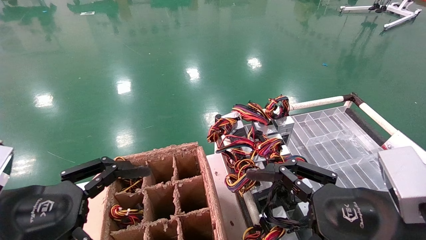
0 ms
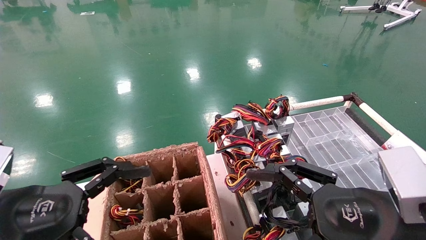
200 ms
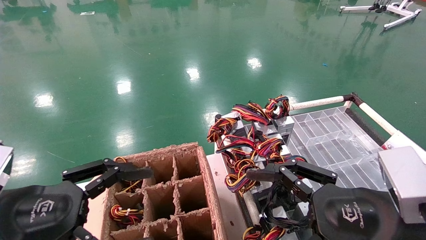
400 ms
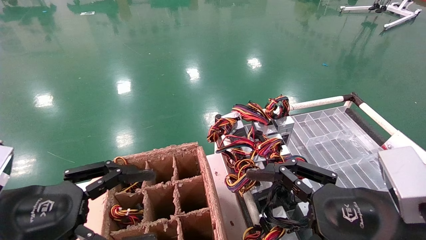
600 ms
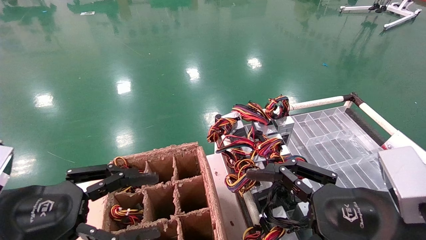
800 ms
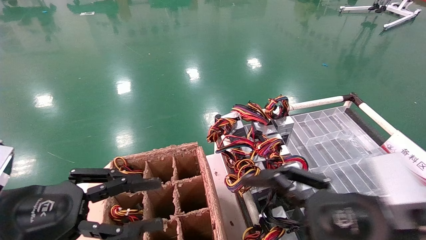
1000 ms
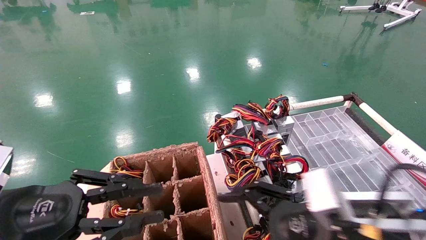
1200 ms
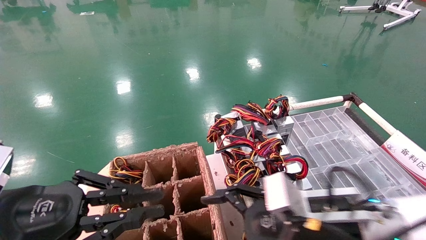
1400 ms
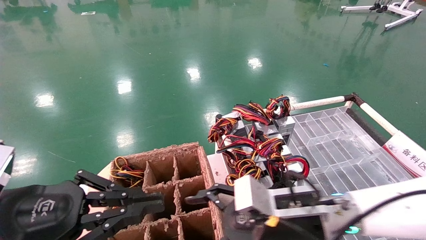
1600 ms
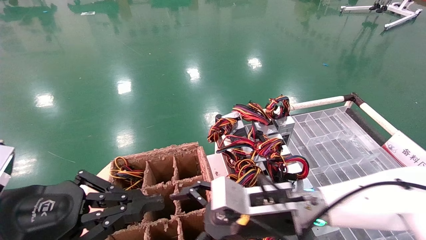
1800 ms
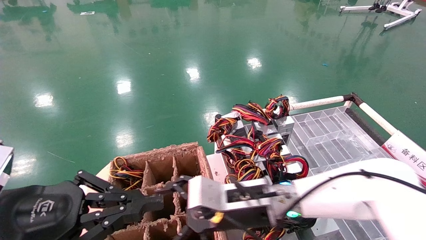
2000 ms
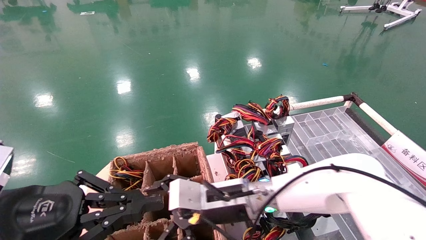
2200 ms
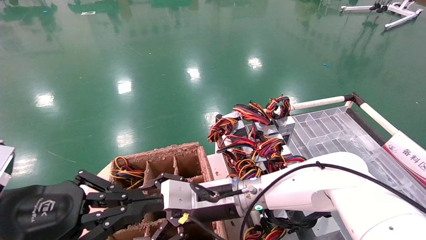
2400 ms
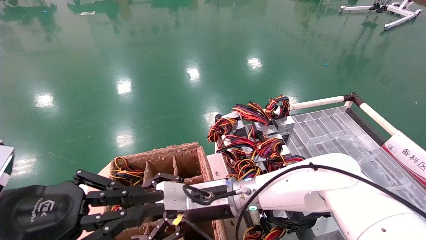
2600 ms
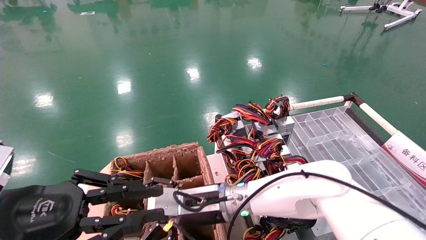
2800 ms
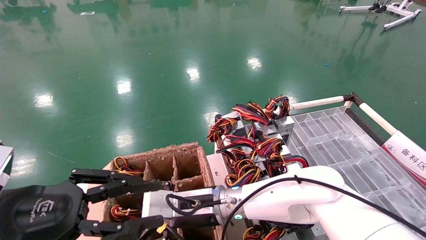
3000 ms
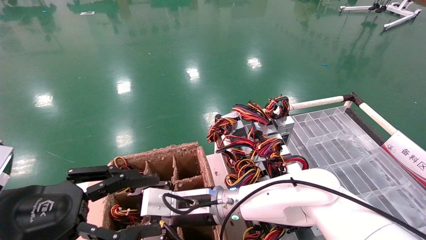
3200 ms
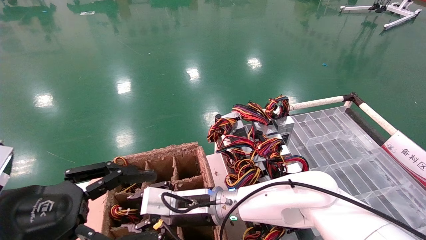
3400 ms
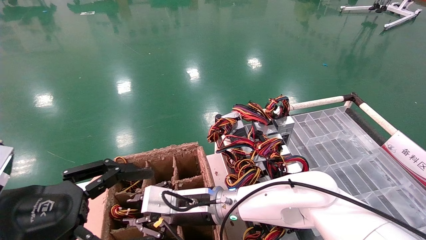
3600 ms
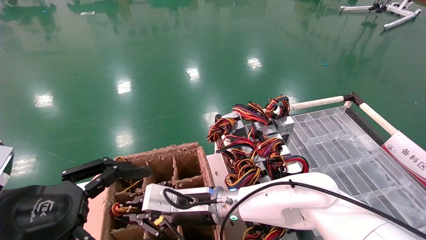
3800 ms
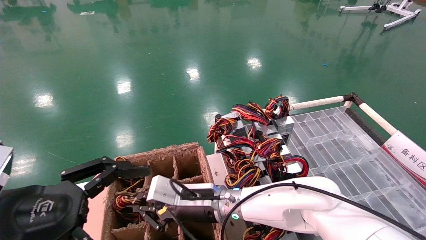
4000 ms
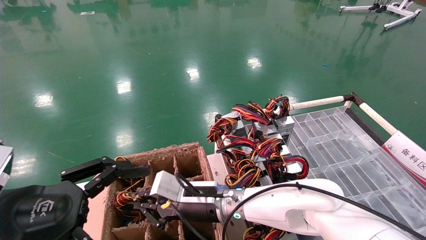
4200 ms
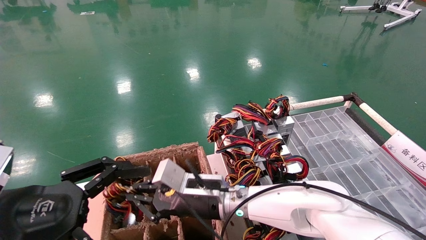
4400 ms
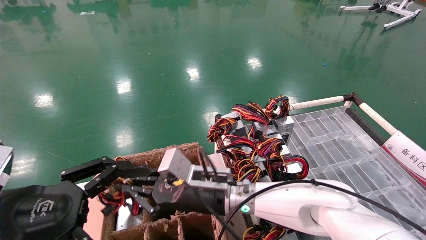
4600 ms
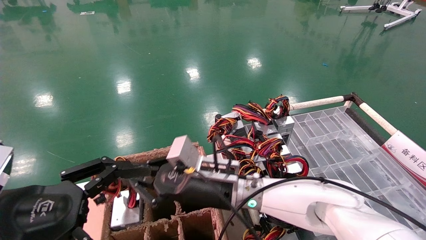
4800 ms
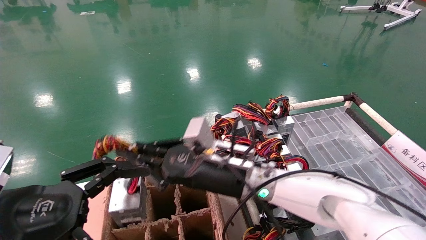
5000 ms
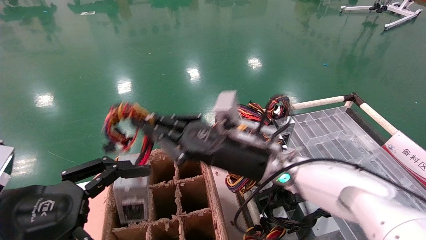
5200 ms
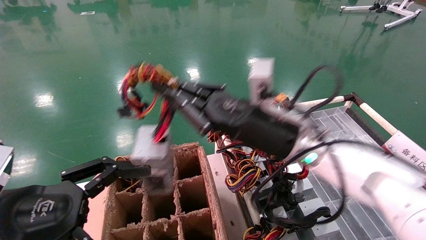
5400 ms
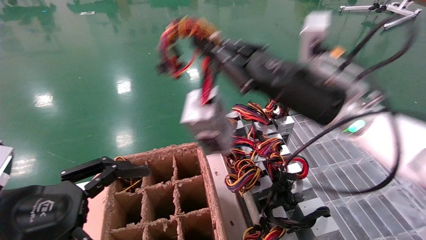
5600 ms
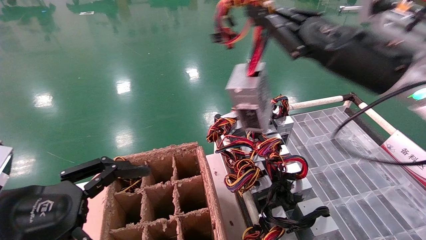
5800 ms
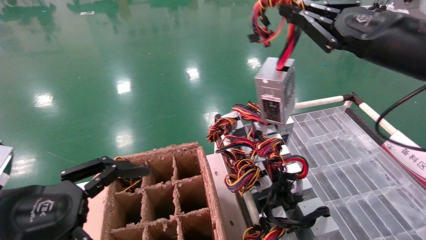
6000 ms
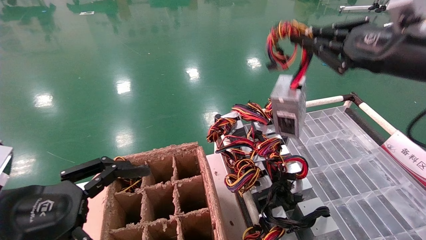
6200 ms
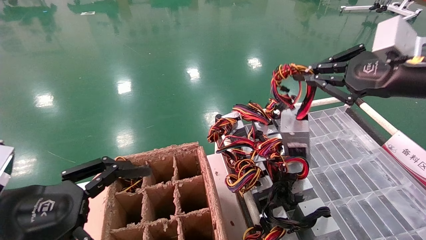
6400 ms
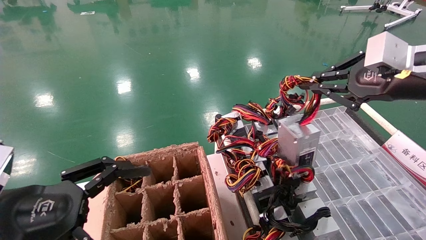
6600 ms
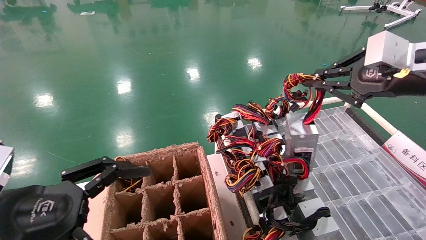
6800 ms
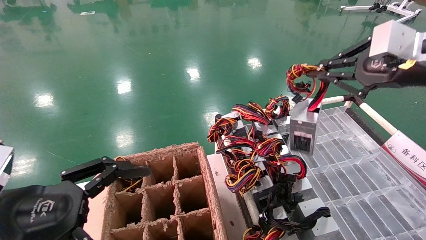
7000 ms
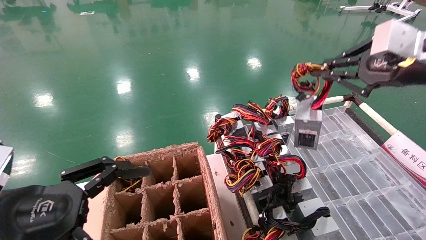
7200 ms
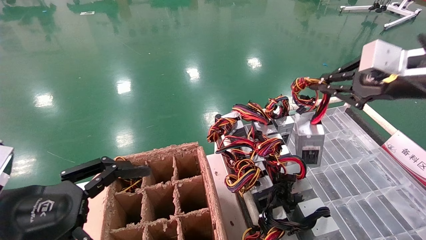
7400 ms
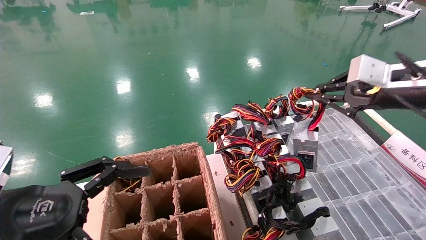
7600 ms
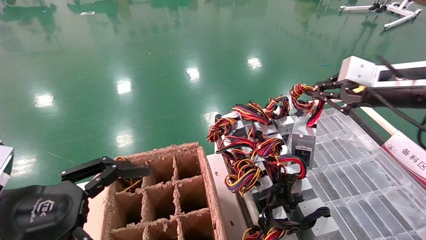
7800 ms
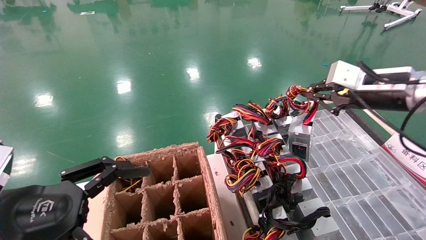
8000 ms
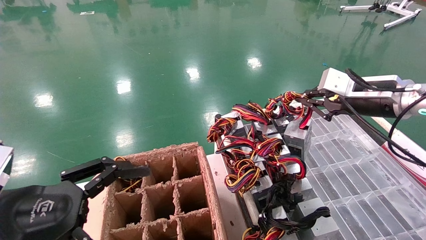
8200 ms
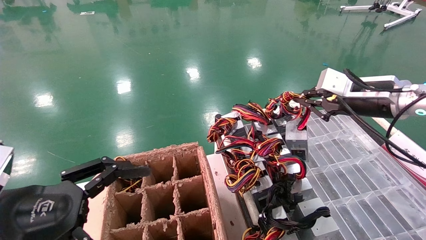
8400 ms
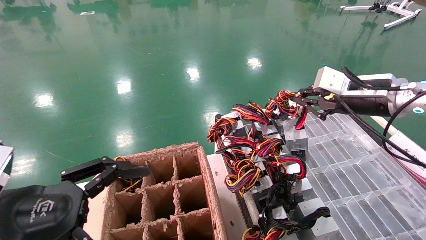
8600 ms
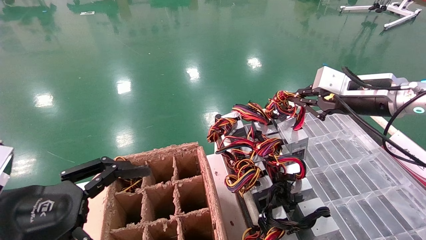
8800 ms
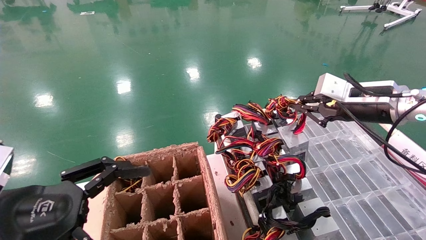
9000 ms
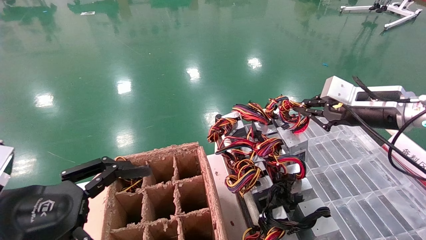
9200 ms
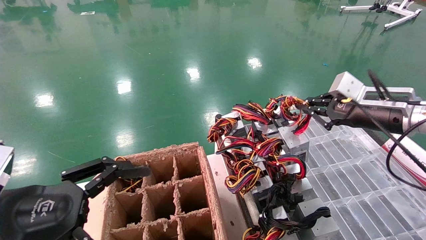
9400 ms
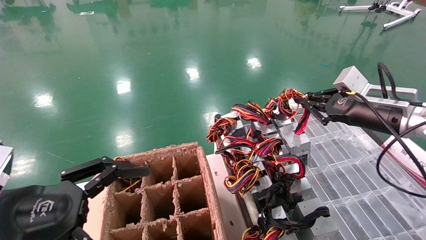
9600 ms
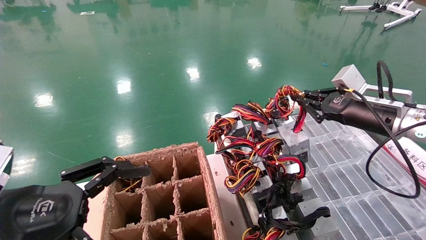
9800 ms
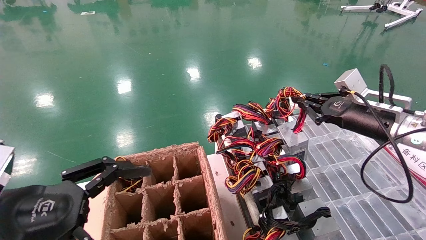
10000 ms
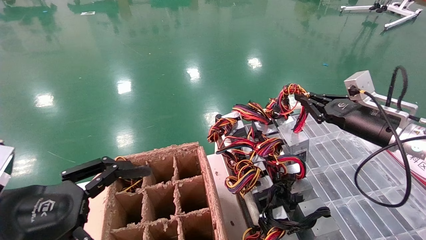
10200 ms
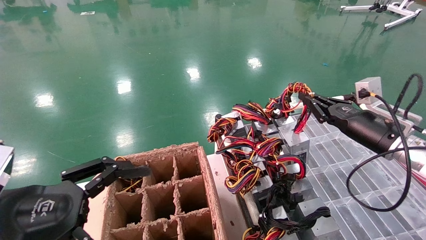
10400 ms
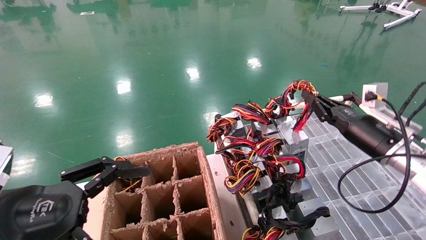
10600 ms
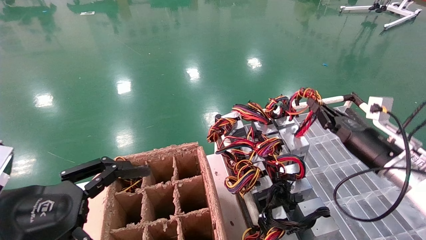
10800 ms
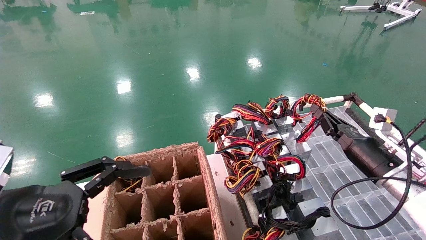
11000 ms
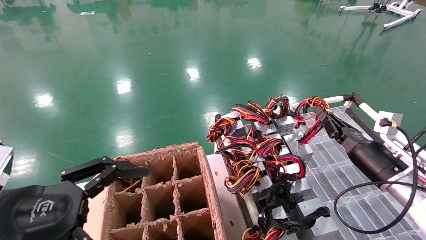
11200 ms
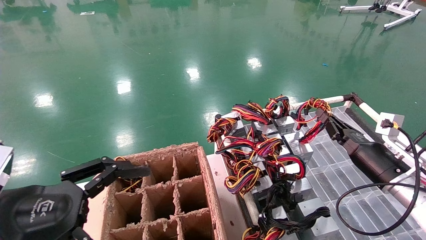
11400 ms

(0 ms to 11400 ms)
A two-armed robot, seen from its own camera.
Step, 800 ms - 4000 ms: Grab and lift the power supply from the large box.
0 ms - 1400 ms: The left gripper closes. The right gripper goes roughly 10 cm forward and to the left.
1400 ms - 2800 ms: The right gripper goes about 20 cm to the left and forward.
2800 ms - 4200 ms: The left gripper opens, while the right gripper closes up.
4200 ms - 5600 ms: The right gripper heads upward and to the right, covering approximately 30 cm.
5600 ms - 7200 ms: The right gripper shifts roughly 20 cm to the right.
7200 ms - 8600 ms: The right gripper goes approximately 10 cm forward and downward.
8600 ms - 10000 ms: The right gripper moves downward, roughly 5 cm.
10000 ms - 11400 ms: The right gripper heads downward, covering about 10 cm.

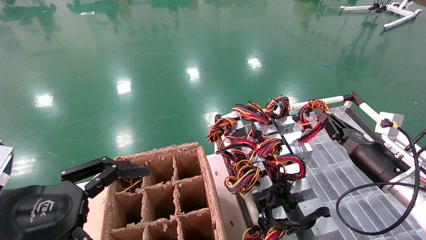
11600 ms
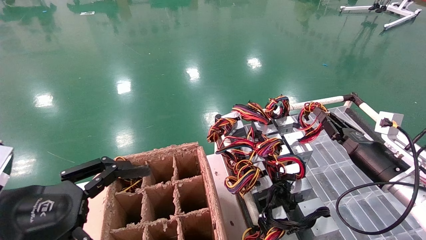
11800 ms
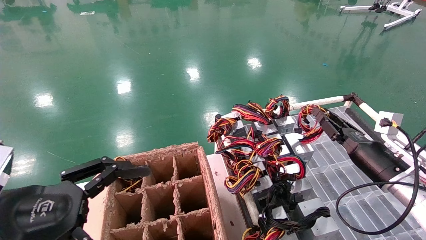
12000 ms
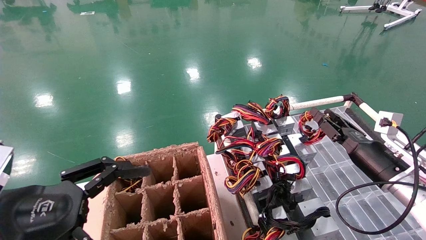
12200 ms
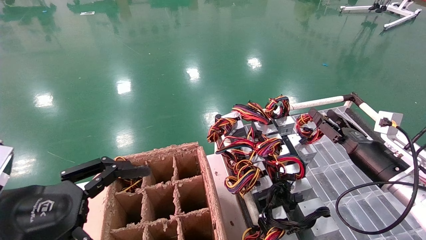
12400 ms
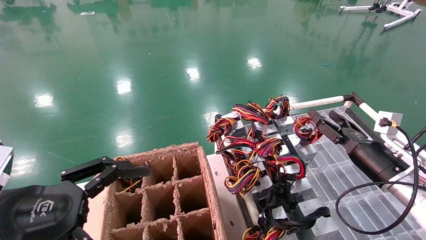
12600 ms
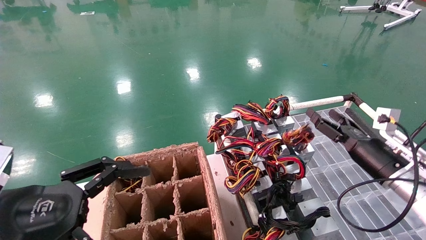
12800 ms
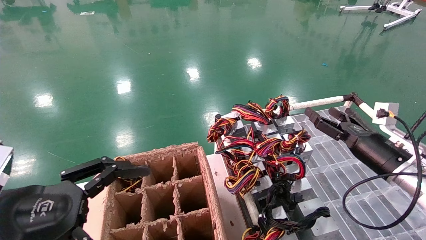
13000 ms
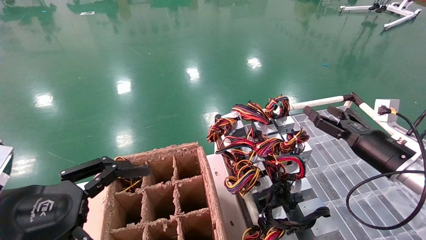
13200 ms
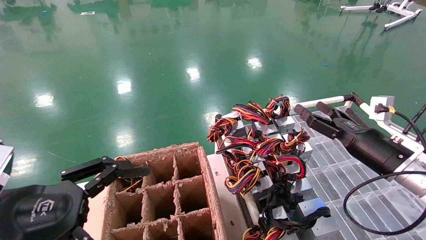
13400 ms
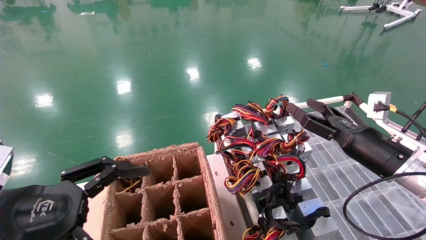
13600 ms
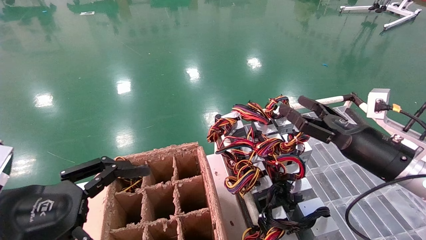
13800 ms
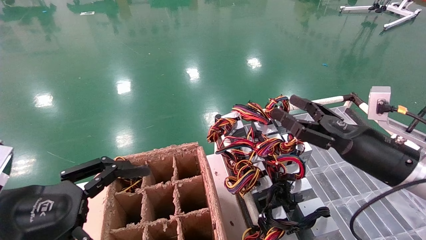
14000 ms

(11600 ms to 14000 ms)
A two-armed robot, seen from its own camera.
11600 ms - 12800 ms: The right gripper opens its fingers.
12800 ms - 14000 ms: The right gripper heads backward and to the left, covering approximately 10 cm.

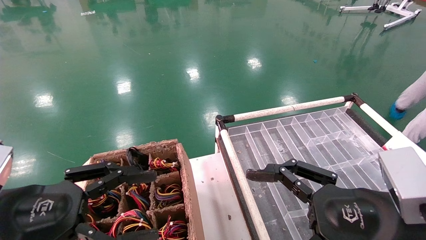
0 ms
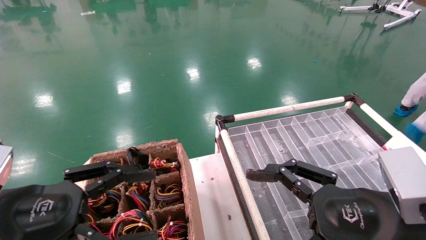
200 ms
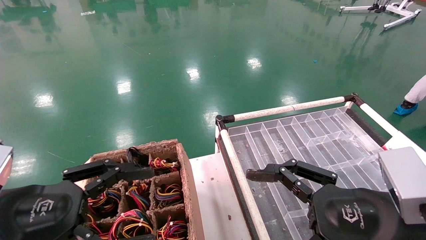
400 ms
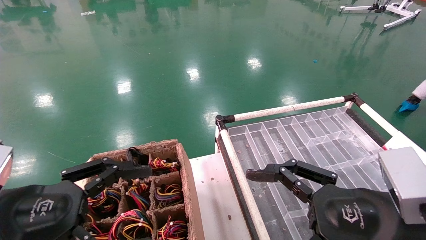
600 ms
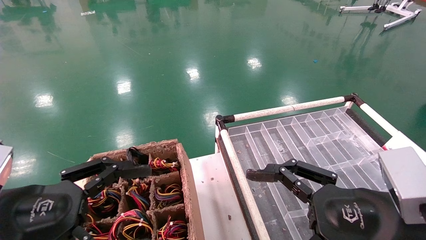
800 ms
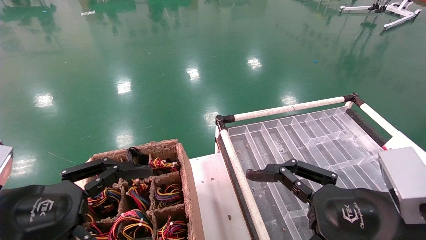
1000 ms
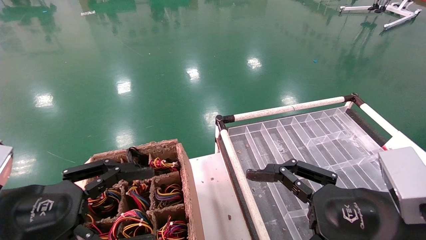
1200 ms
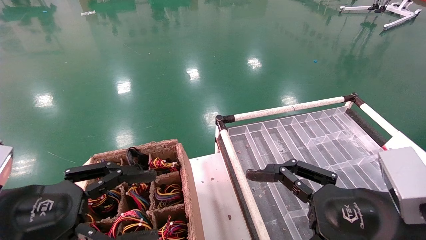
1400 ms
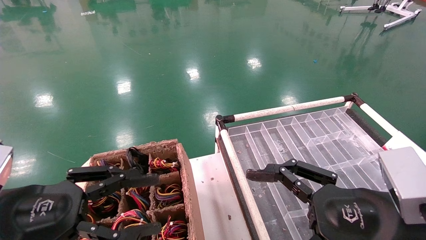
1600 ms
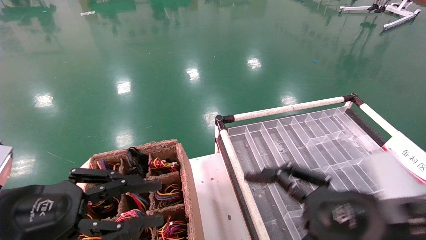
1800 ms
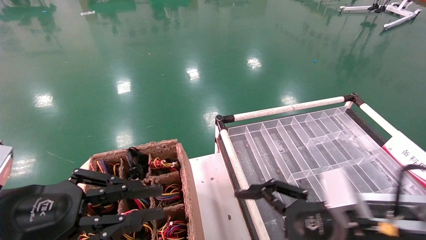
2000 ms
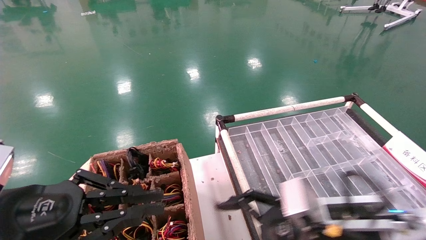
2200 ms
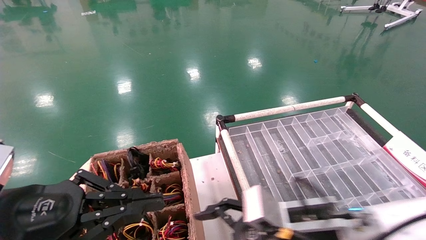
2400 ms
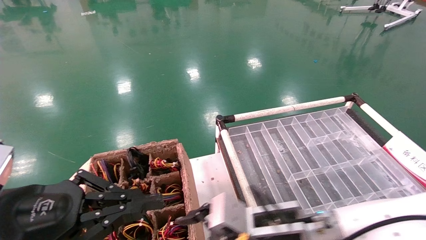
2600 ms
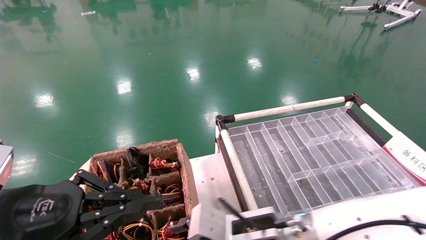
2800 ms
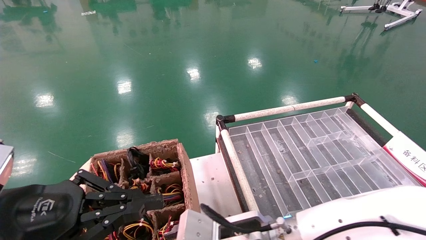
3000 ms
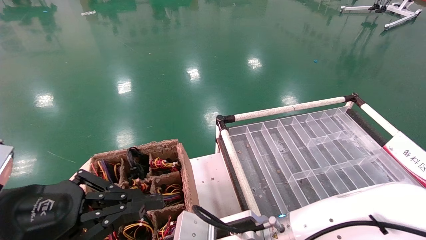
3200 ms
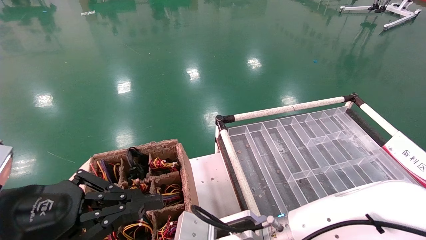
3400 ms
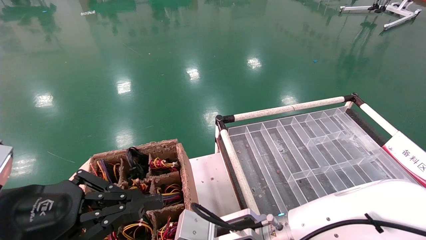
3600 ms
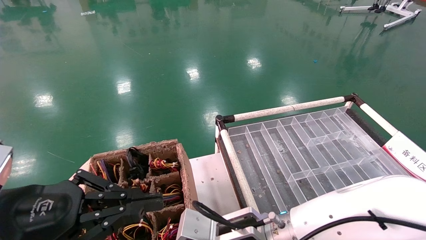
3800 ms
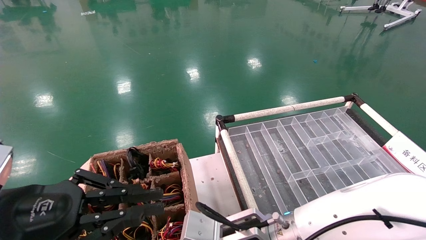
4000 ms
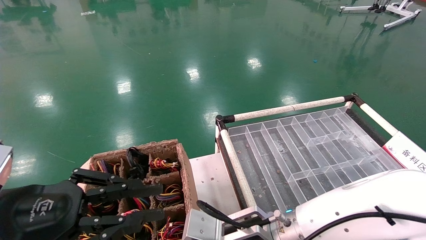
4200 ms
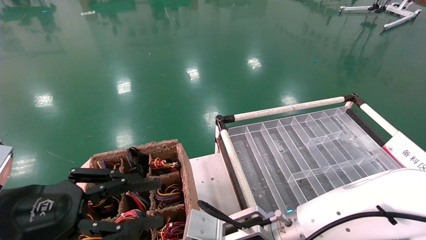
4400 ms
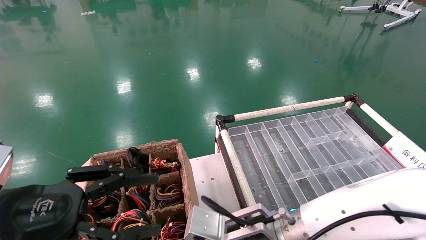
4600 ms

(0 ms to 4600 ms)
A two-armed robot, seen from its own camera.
Step, 2600 ms - 4200 ms: Grab and lift the power supply from the large box.
0 ms - 1600 ms: The two grippers keep their place.
1600 ms - 3000 ms: The left gripper closes its fingers, while the right gripper heads to the left, forward and downward, covering approximately 20 cm.
3000 ms - 4600 ms: The right gripper closes; the left gripper opens.
